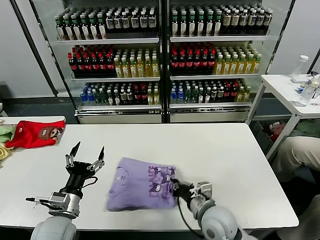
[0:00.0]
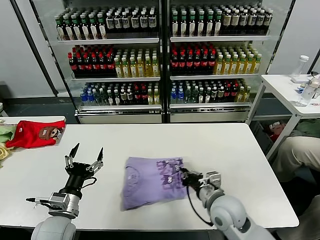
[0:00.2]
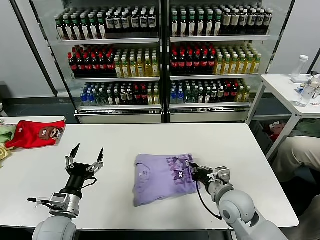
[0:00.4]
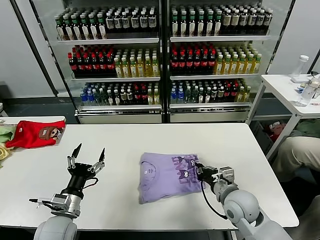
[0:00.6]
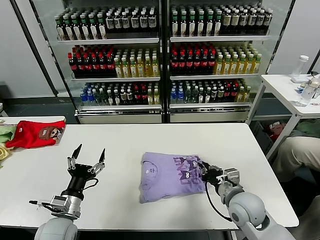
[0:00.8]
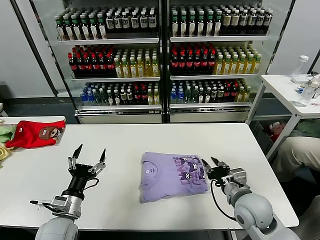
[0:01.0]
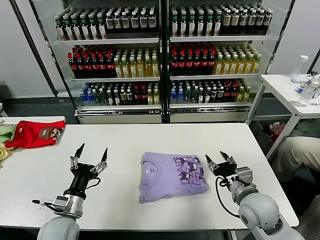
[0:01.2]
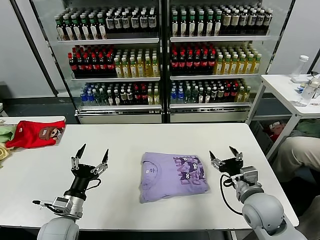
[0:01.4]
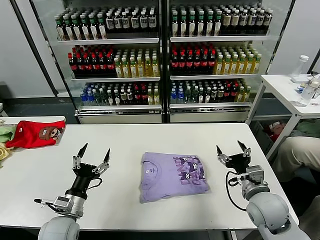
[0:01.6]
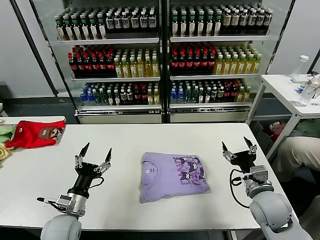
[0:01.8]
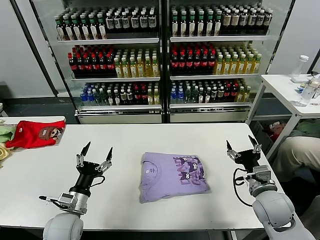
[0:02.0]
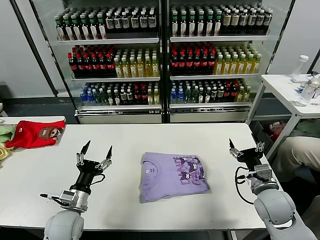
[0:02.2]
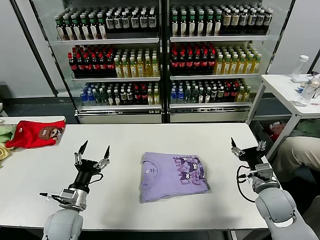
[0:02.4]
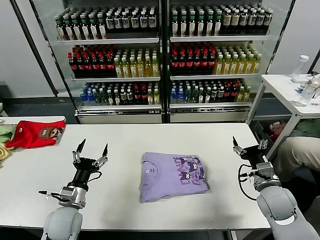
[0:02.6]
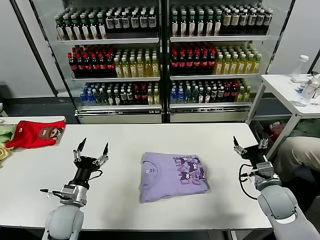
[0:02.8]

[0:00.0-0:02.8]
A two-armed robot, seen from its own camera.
Task of the whole recording: fold and organize the clothes.
0:00.0 to 0:01.4: The right gripper shifts about 10 cm to the right, and opens its fingers.
0:01.4 to 0:02.8: The right gripper moves to the right, roughly 5 cm.
